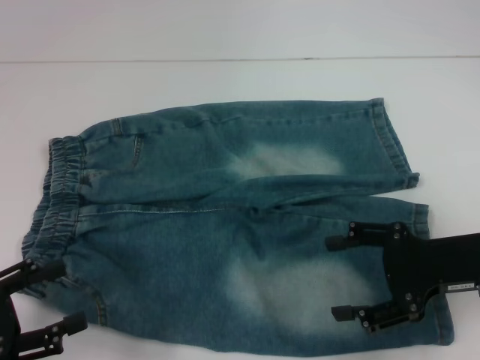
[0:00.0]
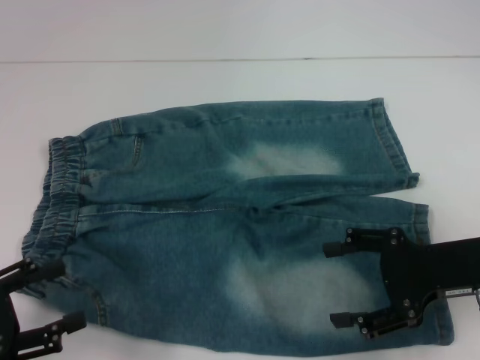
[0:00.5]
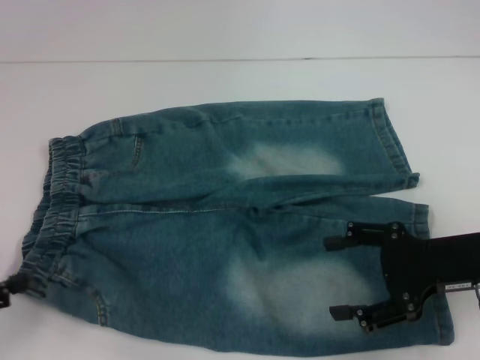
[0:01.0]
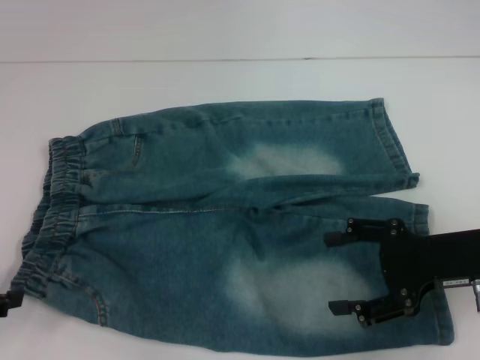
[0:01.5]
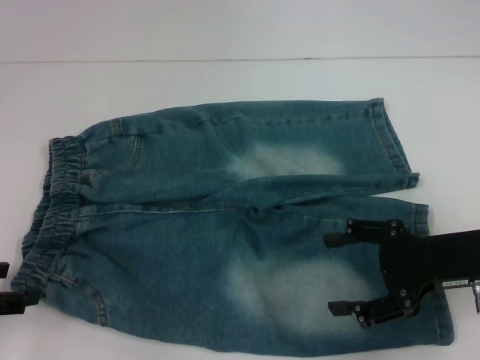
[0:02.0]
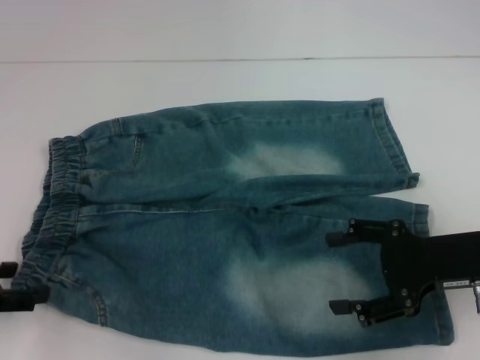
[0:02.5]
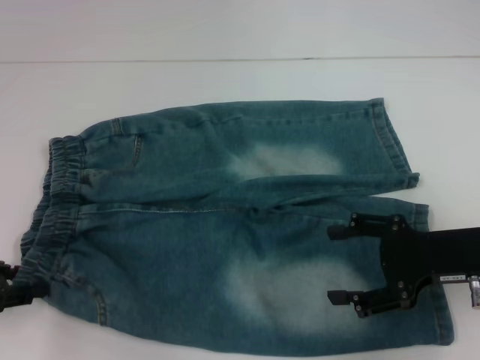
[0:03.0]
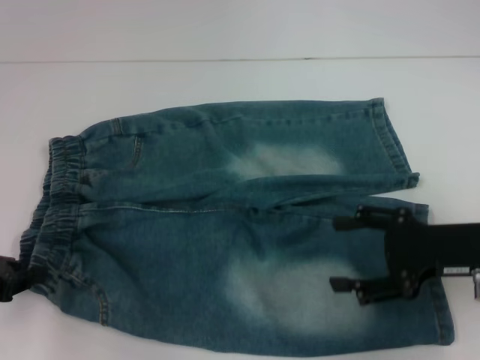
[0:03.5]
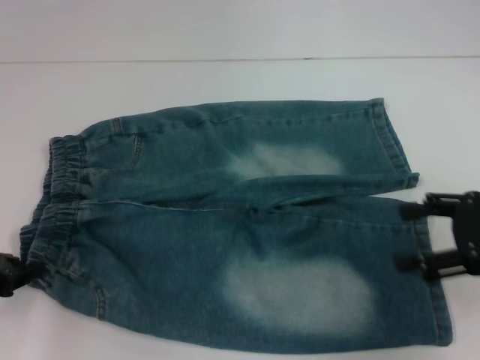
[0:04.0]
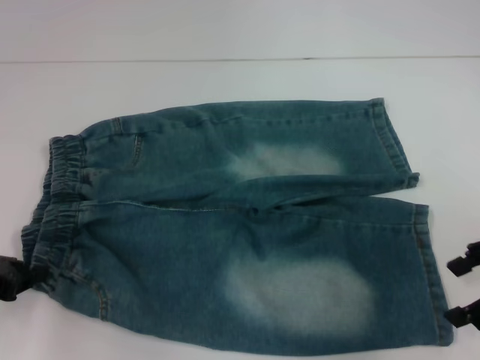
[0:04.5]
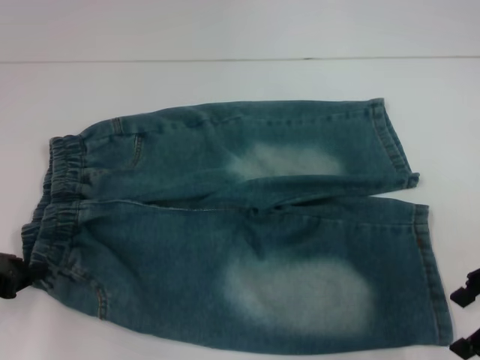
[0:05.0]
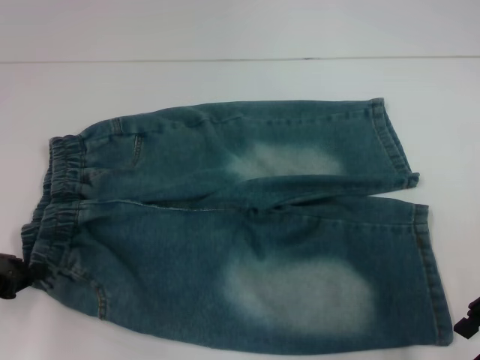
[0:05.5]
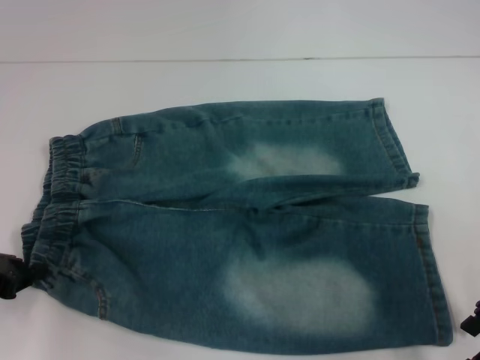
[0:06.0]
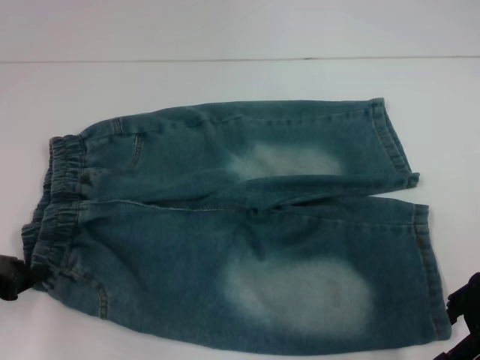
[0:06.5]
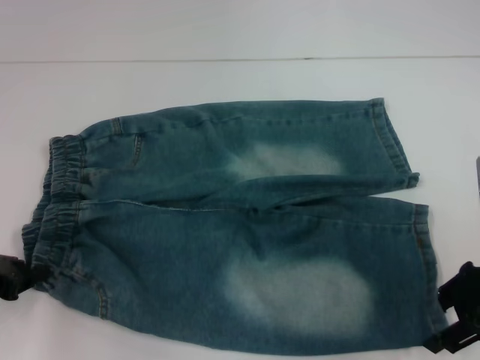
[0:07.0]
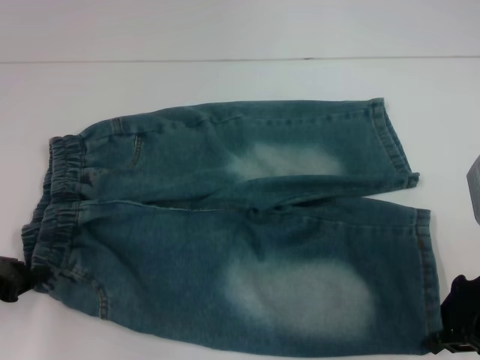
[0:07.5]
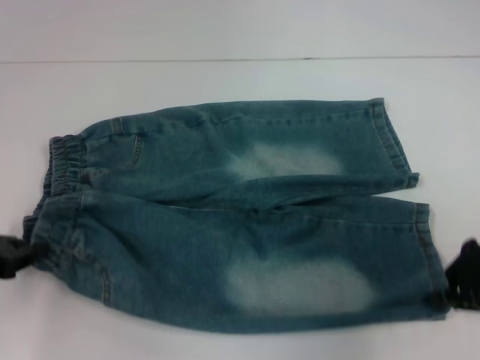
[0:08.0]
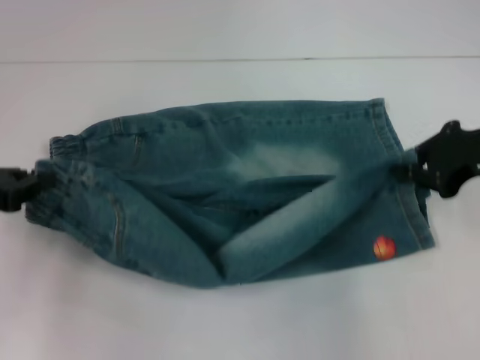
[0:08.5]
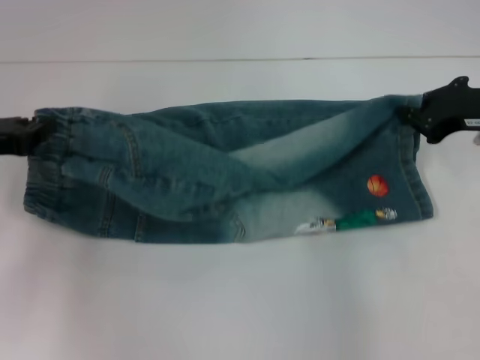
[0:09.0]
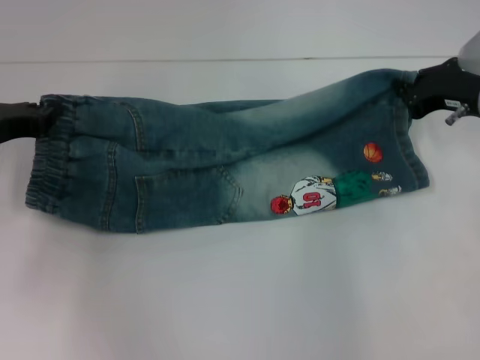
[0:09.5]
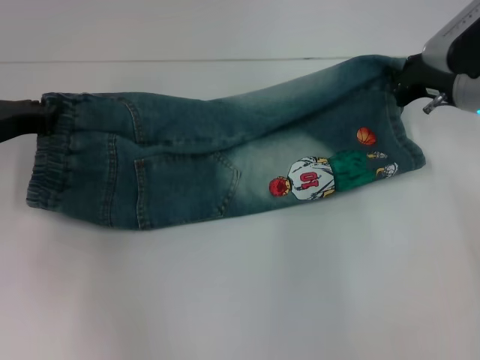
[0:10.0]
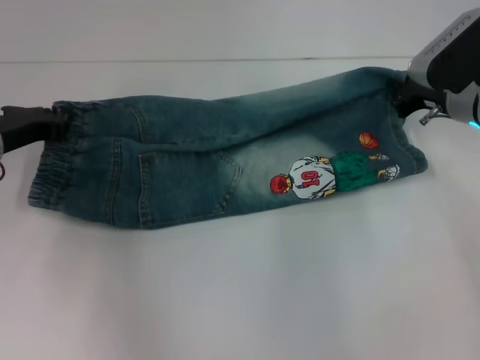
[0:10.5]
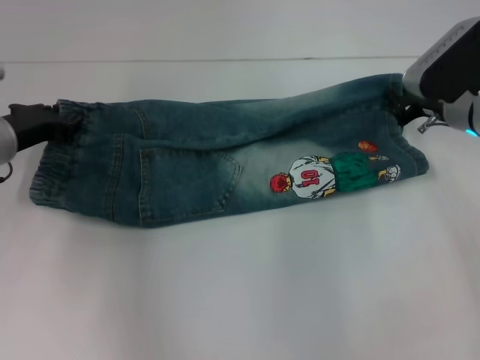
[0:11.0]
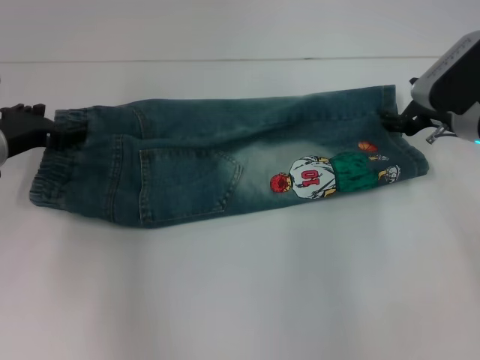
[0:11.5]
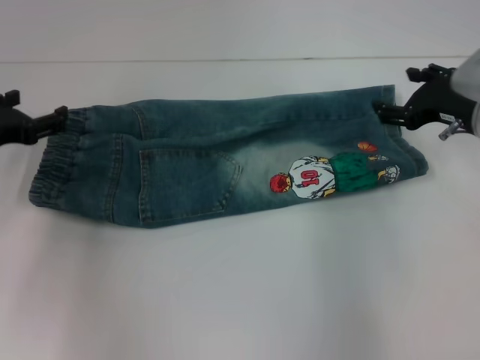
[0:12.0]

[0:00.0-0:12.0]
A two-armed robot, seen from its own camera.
Step, 0:00.0 to 0:03.5: Hold the lower left waistband with your left hand.
Step, 0:04.0 to 0:07.5: Grab the lower right pant leg with your right hand.
Step, 0:08.0 to 0:12.0: Fold upward with your right hand.
0:00.0 to 0:02.0: The left gripper goes approximately 5 cm forward.
0:02.0 to 0:04.0: The left gripper closes up; the right gripper goes roughly 5 cm to the right.
0:06.0 to 0:08.0: The right gripper closes up.
0:08.0 to 0:10.0: The grippers both shift forward by approximately 10 cm.
0:10.0 to 0:12.0: The left gripper opens its fingers; the right gripper opens its fingers.

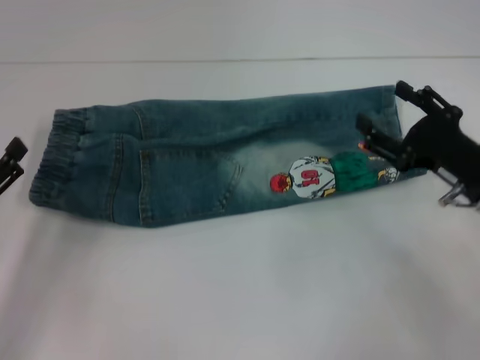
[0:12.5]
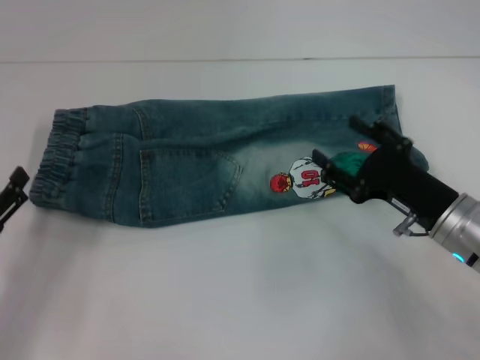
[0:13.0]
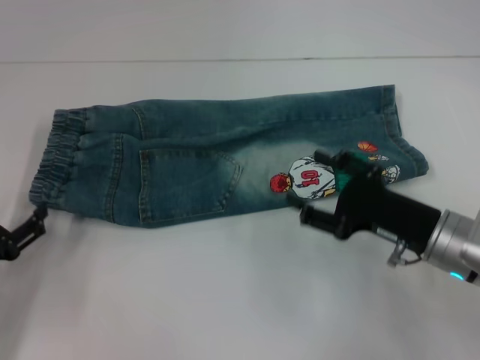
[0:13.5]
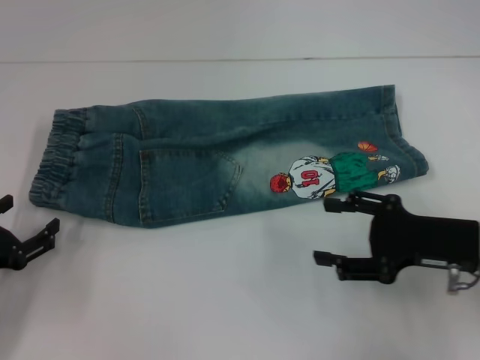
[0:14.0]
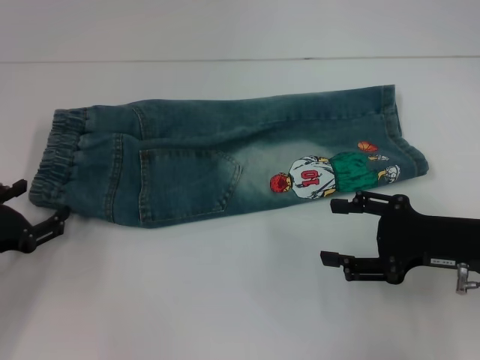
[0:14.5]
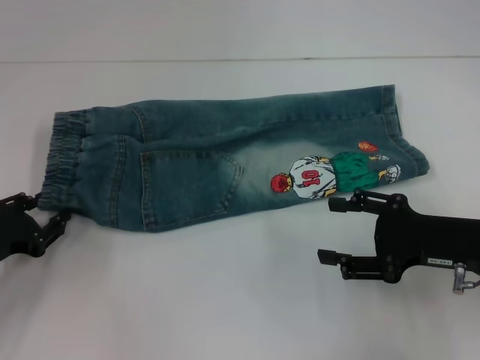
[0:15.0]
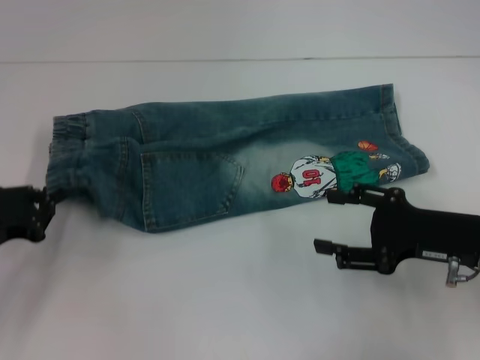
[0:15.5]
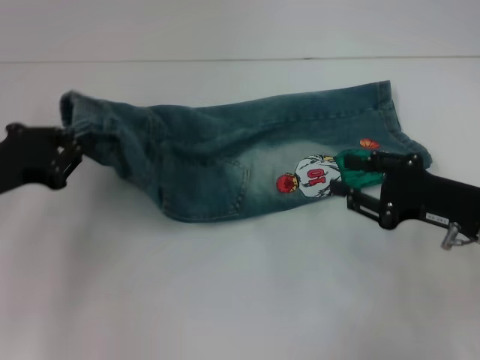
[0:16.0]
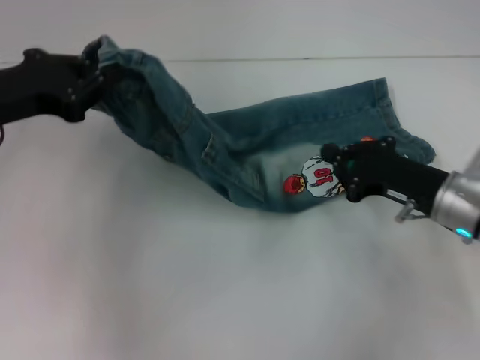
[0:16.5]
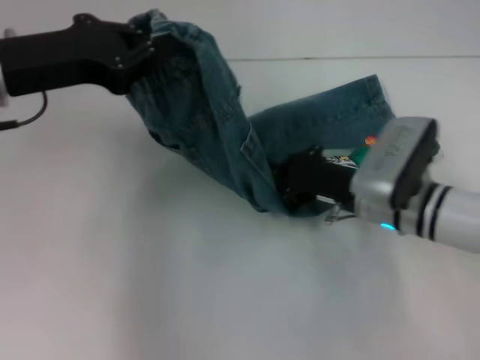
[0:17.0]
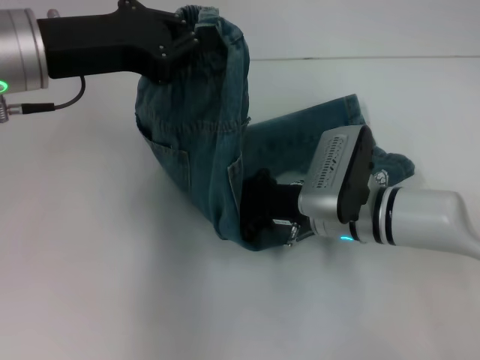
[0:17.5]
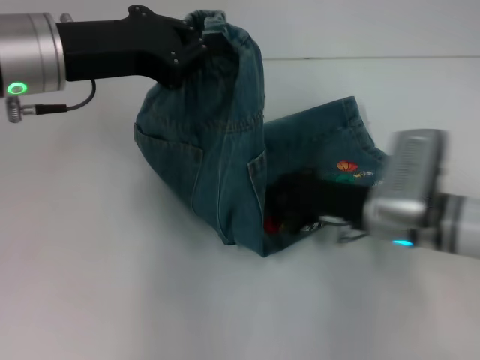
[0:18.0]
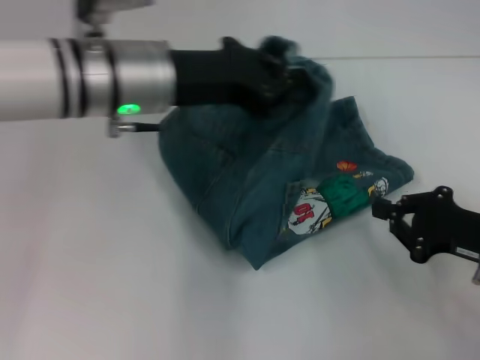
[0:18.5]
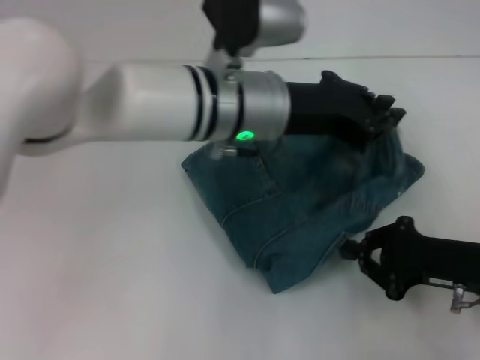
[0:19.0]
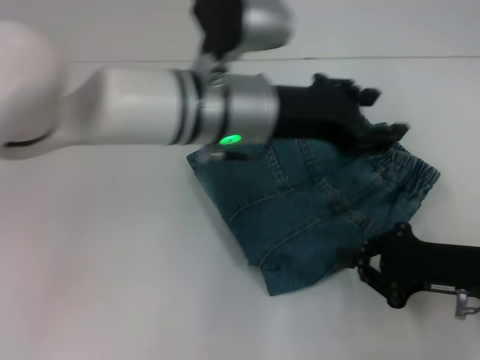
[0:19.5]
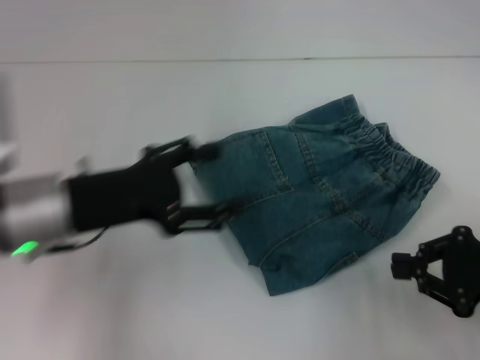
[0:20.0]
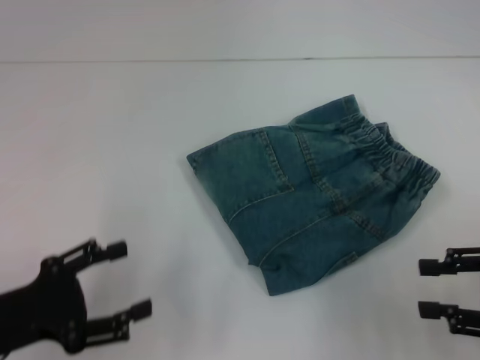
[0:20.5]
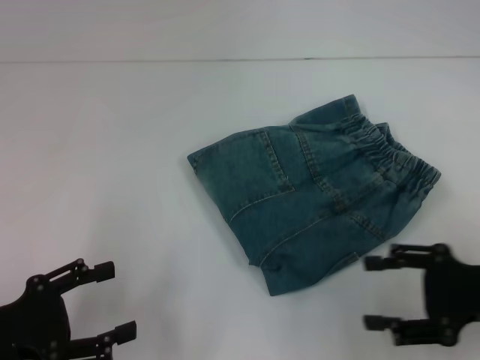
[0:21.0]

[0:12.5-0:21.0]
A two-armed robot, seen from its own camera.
Step, 0:12.5 to 0:15.0: Hold the waistband with your left hand.
Step, 0:15.5 to 0:18.0: Press the middle of the pants with your right hand.
Step, 0:18.5 to 0:19.0: Fold to the right with your left hand.
0:14.5 to 0:16.5: The left gripper is displaced upward and forward by about 20 cm, and closes up. The right gripper moves approximately 5 cm, and closes up.
0:16.5 to 0:19.0: The left gripper goes roughly 25 cm to the right. Meanwhile the right gripper travels backward by about 5 cm, and goes to the left and returns, approximately 10 cm each way.
0:19.0 to 0:21.0: The left gripper shifts roughly 35 cm to the left and backward, and opens, while the right gripper opens.

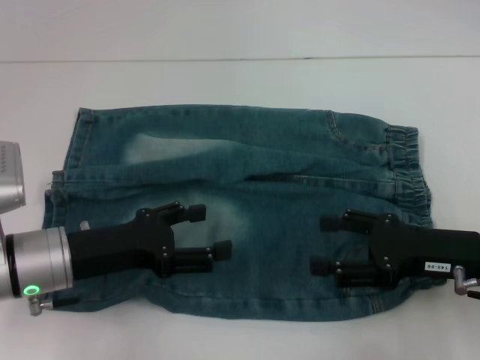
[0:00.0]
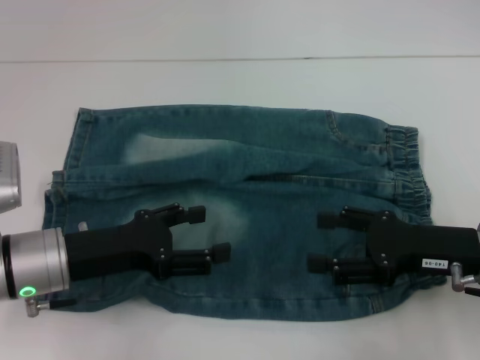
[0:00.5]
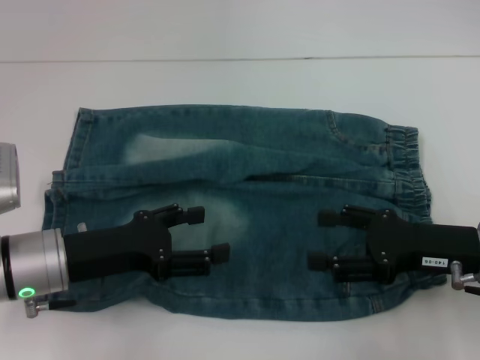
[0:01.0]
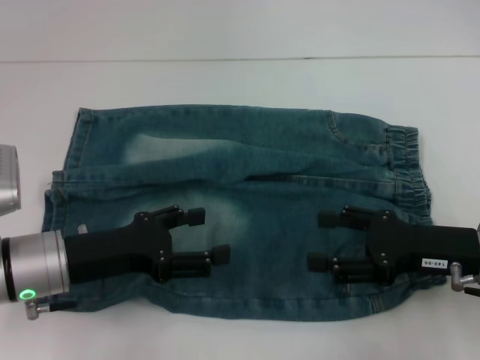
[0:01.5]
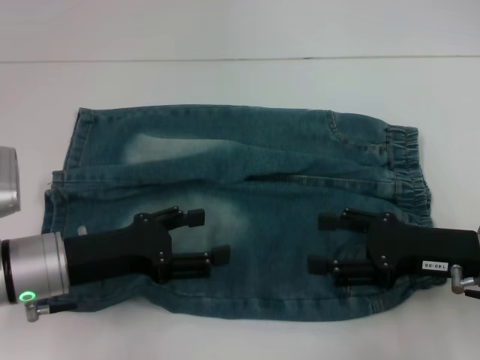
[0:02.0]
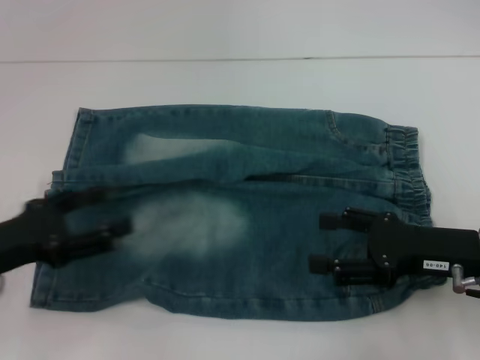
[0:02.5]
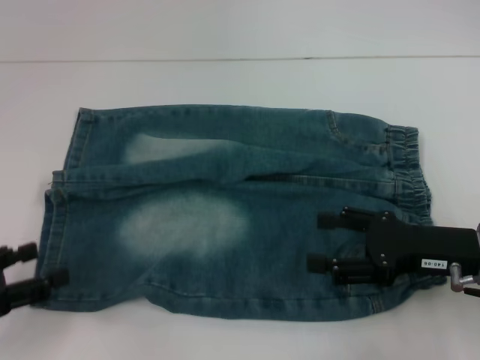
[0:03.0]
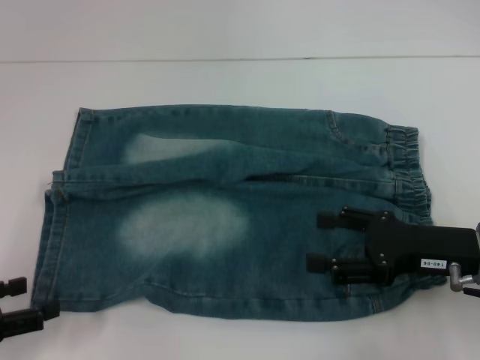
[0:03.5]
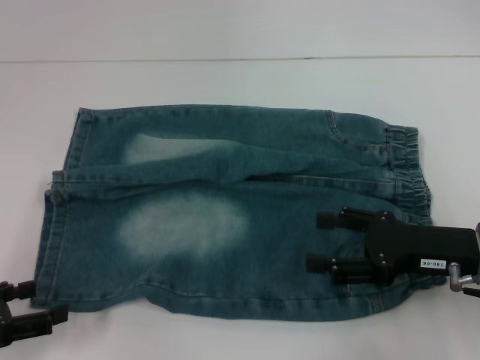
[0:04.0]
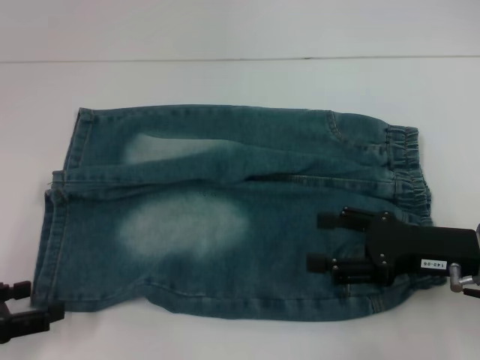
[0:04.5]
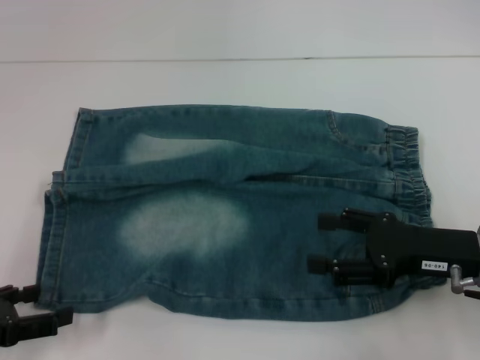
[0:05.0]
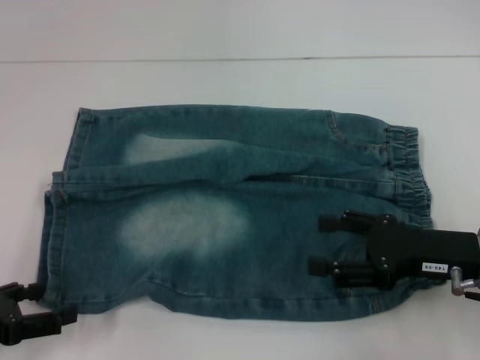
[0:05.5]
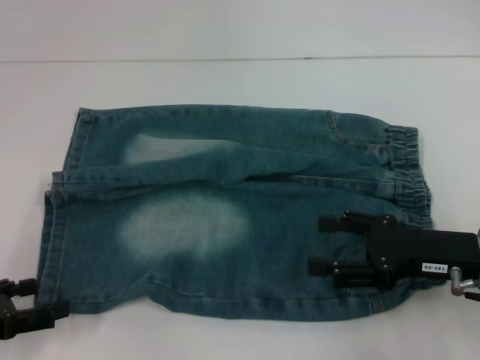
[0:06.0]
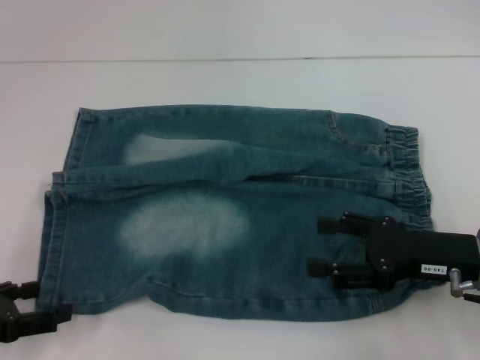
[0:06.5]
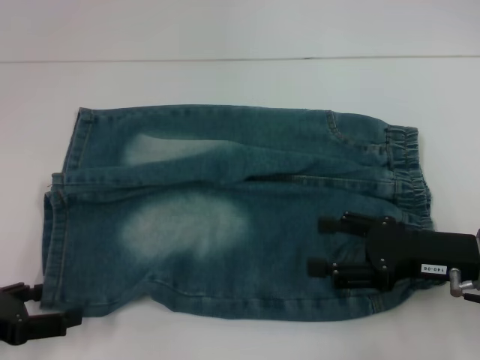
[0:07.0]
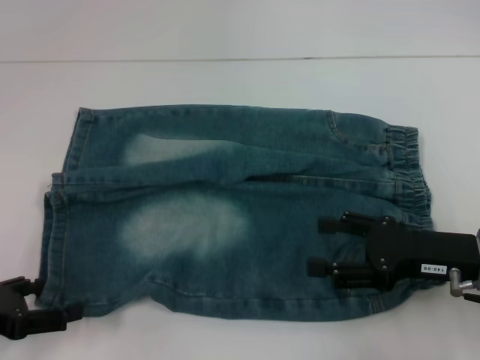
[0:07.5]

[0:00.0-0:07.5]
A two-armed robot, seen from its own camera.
0:00.0 to 0:02.0: Both grippers stay about where they are.
0:02.0 to 0:04.0: The left gripper travels to the left and backward by some 15 cm.
0:04.0 to 0:05.5: The two grippers keep their place.
0:05.5 to 0:07.5: Neither gripper changes place.
